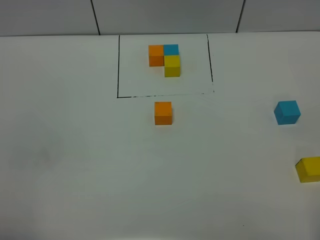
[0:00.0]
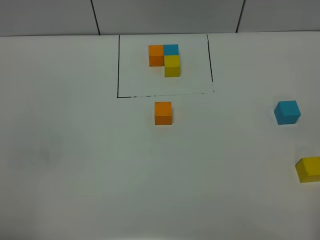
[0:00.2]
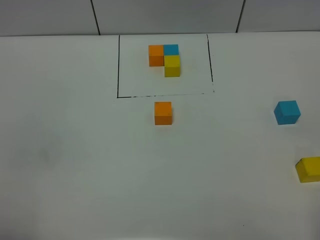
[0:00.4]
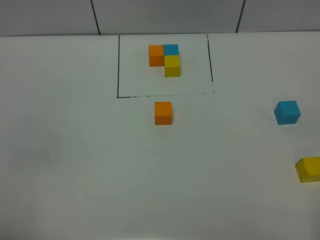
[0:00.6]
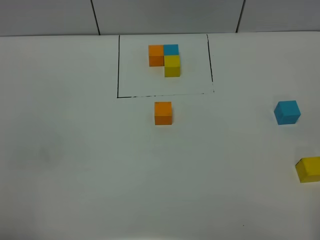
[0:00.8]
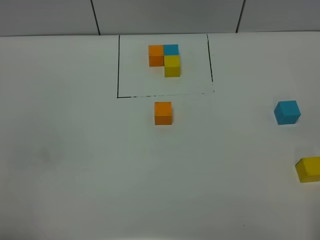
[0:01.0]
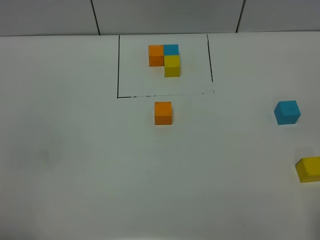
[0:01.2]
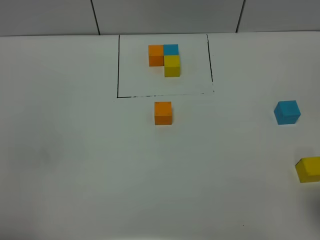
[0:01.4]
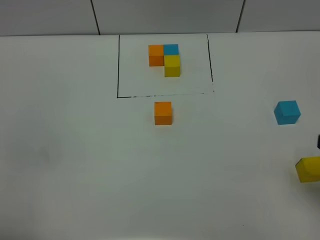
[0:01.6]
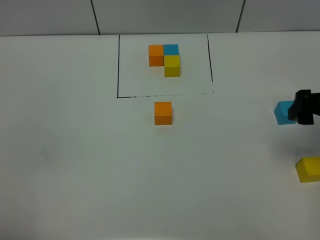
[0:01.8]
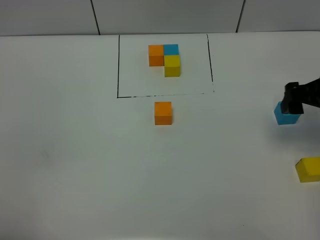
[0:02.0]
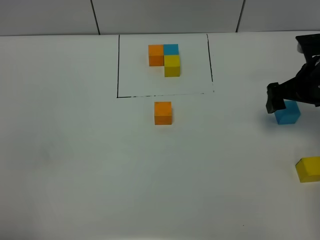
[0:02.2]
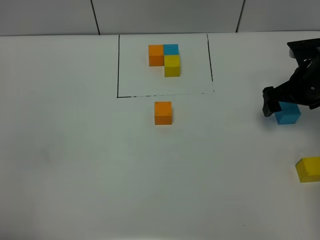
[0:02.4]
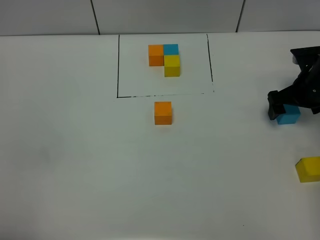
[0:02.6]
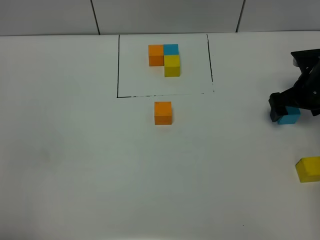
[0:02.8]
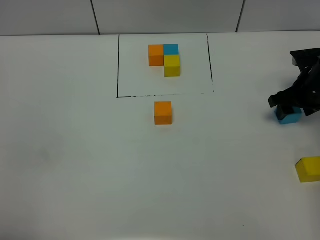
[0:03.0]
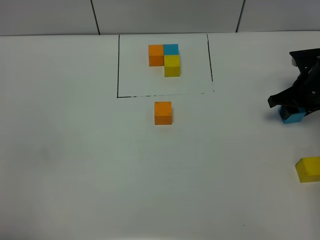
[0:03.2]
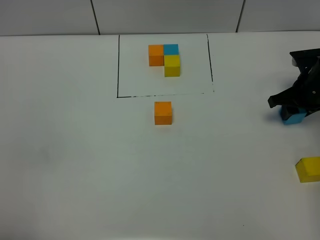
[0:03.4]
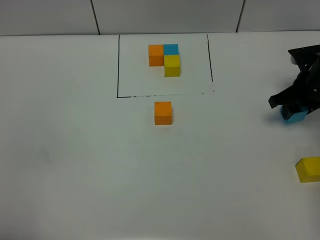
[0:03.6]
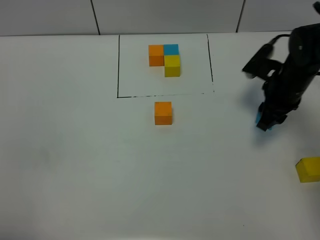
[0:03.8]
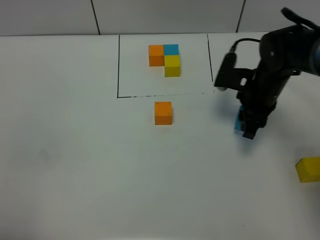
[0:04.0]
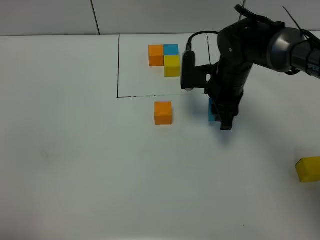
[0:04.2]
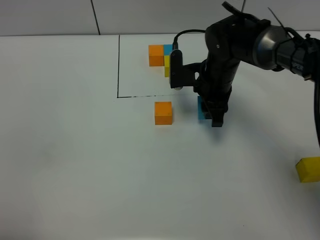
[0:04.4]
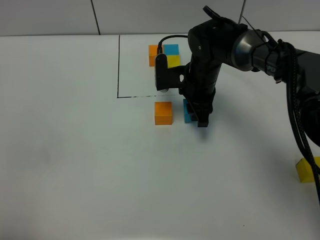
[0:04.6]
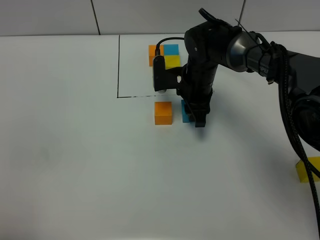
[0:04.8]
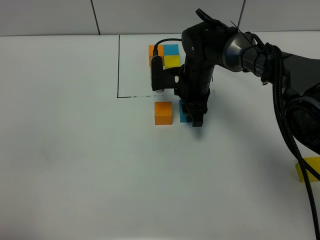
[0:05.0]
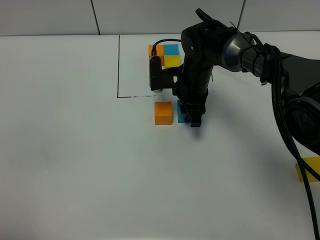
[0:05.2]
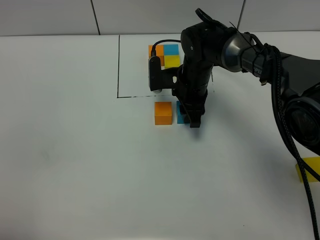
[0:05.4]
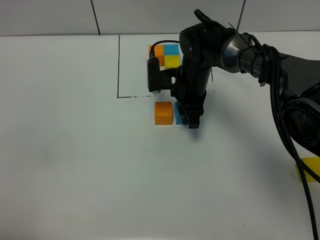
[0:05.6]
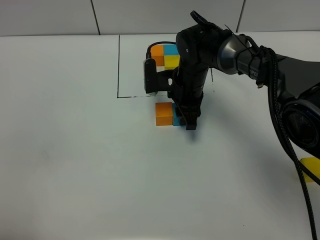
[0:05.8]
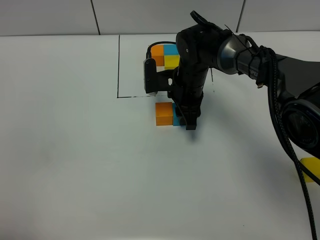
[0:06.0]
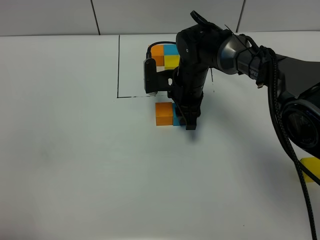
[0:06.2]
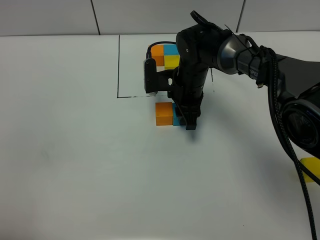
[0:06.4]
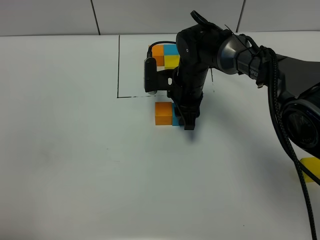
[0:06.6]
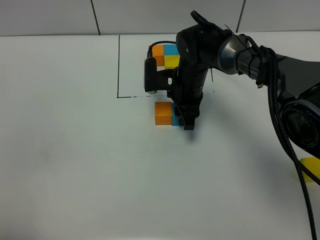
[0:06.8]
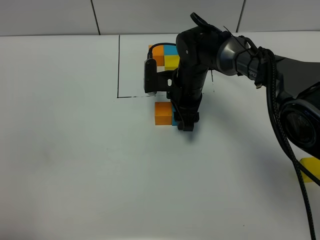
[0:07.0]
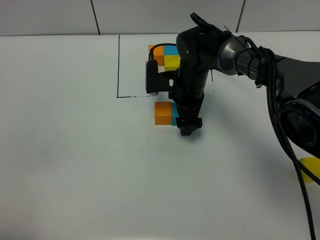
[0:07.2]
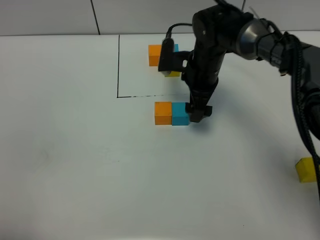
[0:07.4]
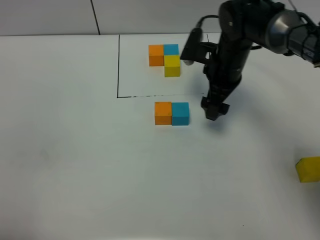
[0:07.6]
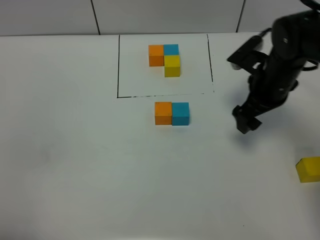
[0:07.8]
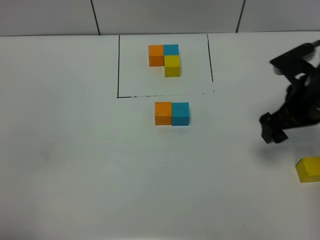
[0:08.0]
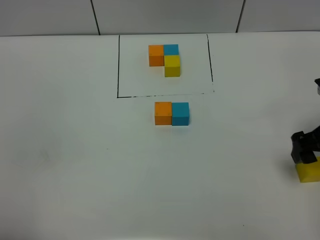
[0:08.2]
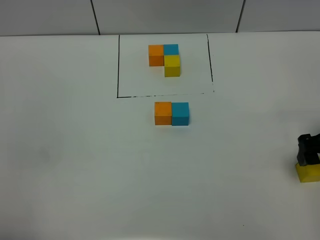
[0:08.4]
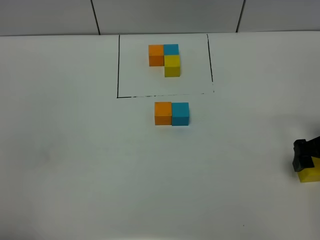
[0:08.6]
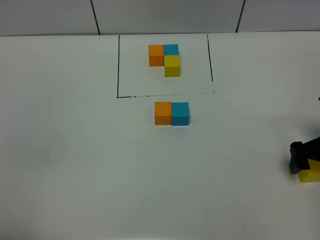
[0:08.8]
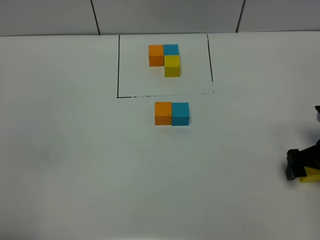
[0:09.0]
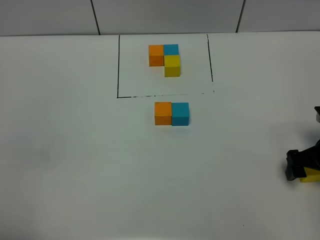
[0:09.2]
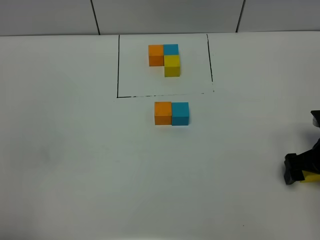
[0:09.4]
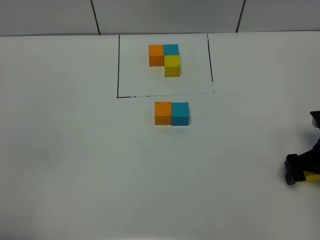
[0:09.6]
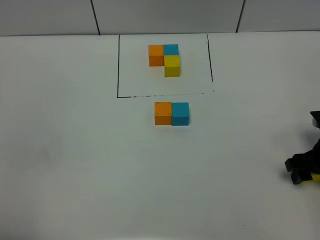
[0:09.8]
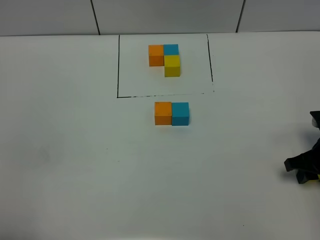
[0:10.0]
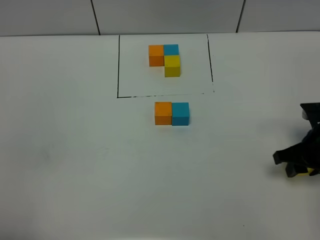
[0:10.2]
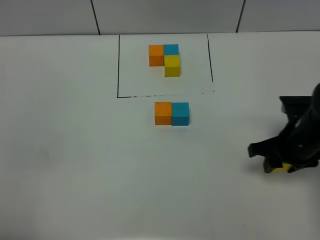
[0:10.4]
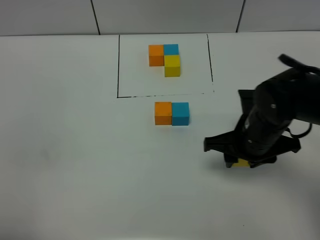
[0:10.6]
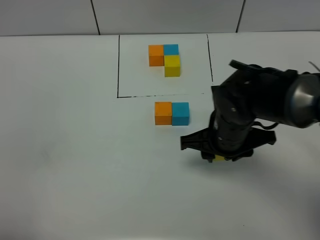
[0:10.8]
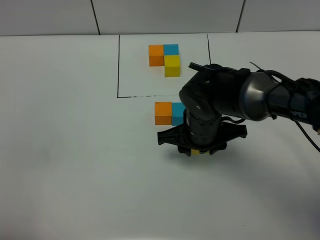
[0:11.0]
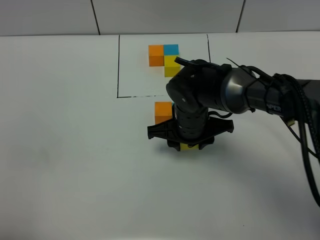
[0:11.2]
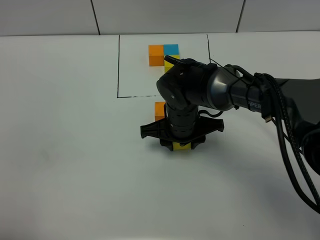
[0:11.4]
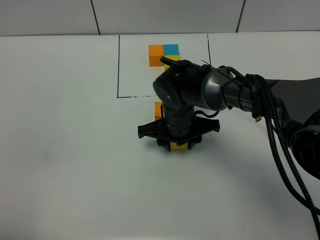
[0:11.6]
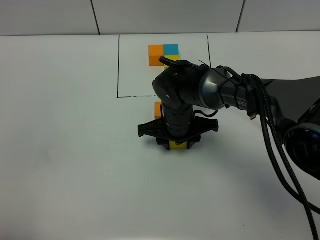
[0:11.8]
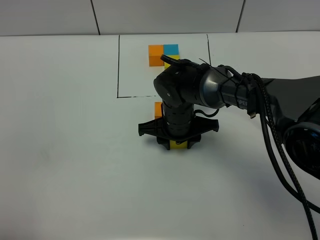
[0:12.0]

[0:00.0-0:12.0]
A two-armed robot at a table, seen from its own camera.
Task of the whole recording: According to the building block template in front, assemble the scattered blocks together.
Step, 0:00.0 to 0:07.0: Put the blue build block on the right of the orange build block.
0:00.0 to 0:01.6: The right gripper travels forward by some 15 cm, and opens up.
0:01.6 to 0:03.0: The right gripper is displaced forward and downward by about 30 cm, and opens, then closes again.
0:03.0 to 0:04.4: The right gripper moves to the left, some 20 cm.
0:04.4 to 0:06.0: The right gripper moves some 5 cm.
0:06.0 to 0:07.6: The right gripper travels to the right and upward by about 10 cm, and opens its fingers.
0:07.6 to 0:09.0: The right gripper shifts approximately 25 cm backward and to the right.
0:09.0 to 0:10.4: The right gripper heads to the left, covering about 10 cm, and closes its fingers.
0:10.4 to 0:12.0: The right gripper goes about 20 cm to the left and forward.

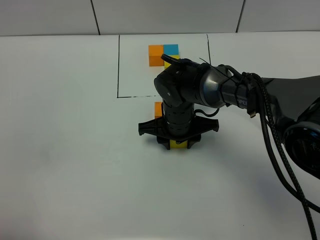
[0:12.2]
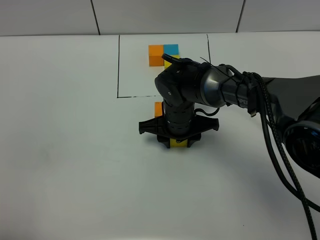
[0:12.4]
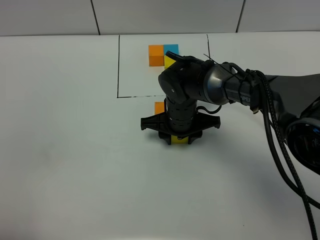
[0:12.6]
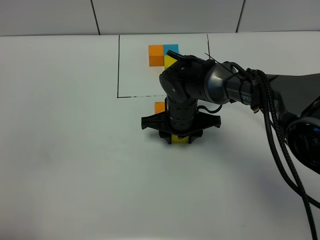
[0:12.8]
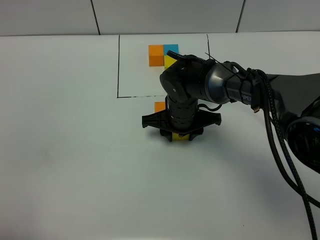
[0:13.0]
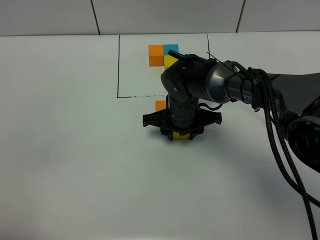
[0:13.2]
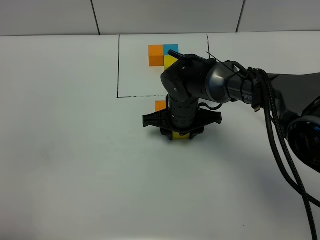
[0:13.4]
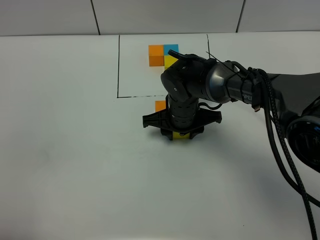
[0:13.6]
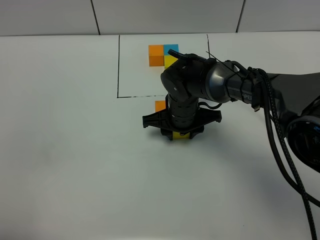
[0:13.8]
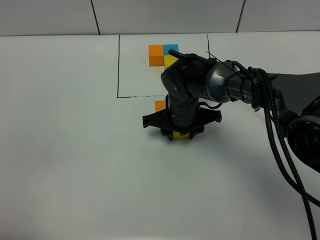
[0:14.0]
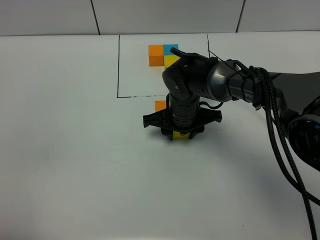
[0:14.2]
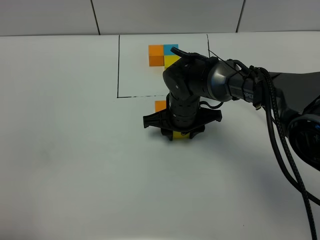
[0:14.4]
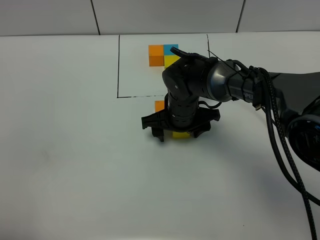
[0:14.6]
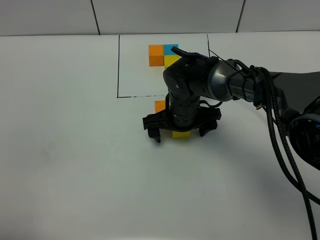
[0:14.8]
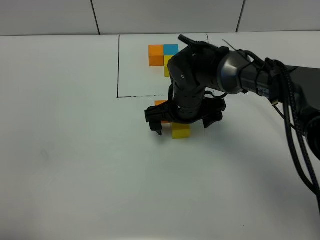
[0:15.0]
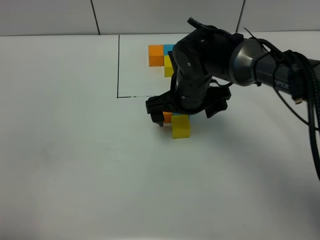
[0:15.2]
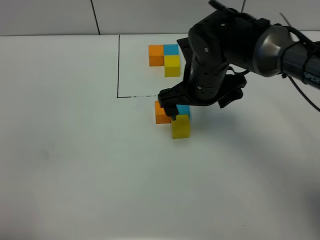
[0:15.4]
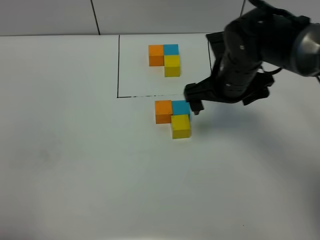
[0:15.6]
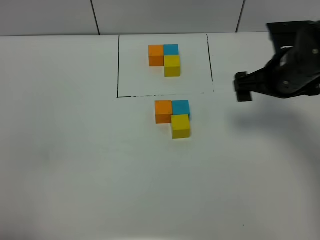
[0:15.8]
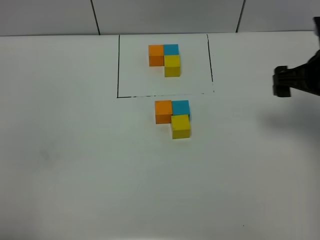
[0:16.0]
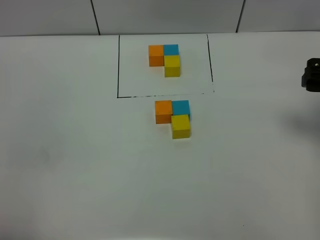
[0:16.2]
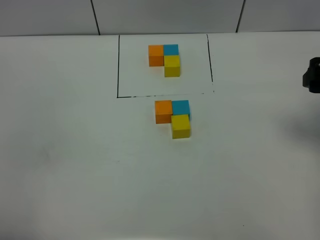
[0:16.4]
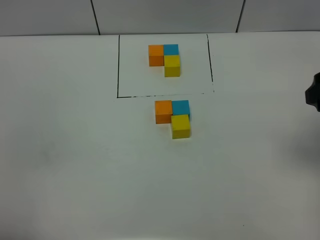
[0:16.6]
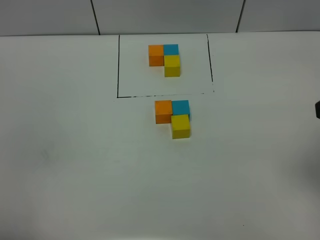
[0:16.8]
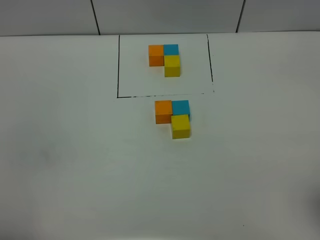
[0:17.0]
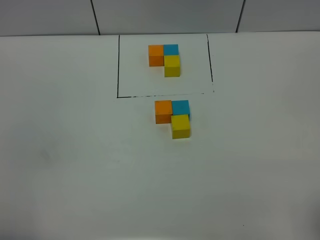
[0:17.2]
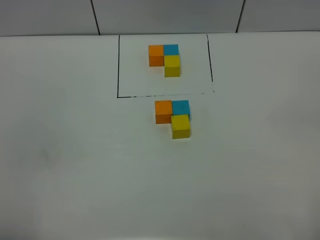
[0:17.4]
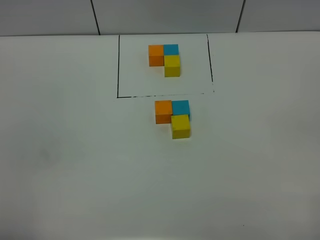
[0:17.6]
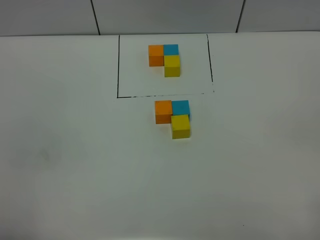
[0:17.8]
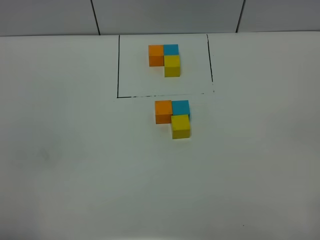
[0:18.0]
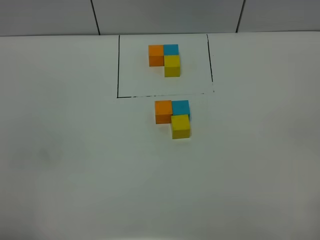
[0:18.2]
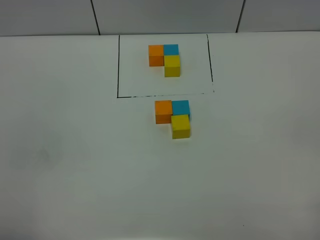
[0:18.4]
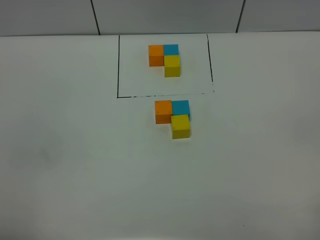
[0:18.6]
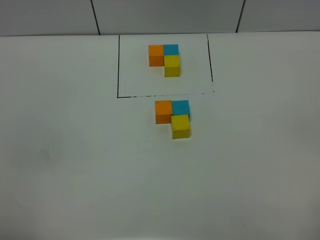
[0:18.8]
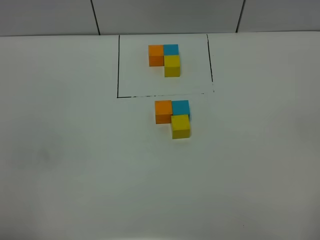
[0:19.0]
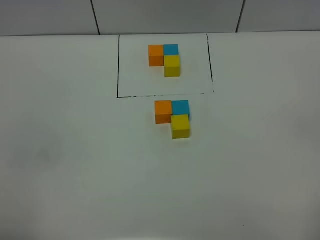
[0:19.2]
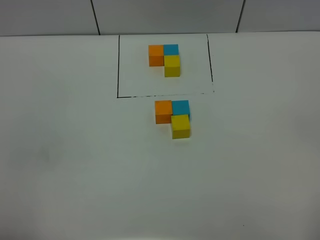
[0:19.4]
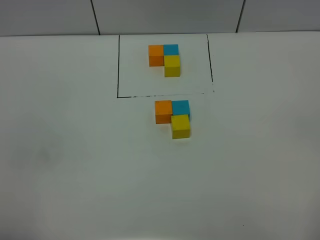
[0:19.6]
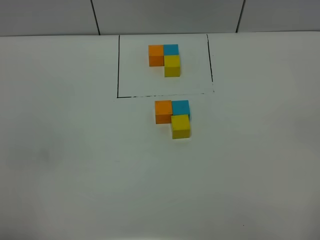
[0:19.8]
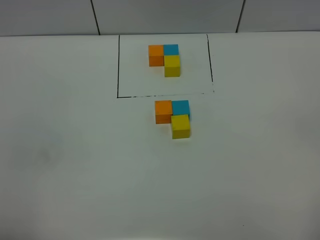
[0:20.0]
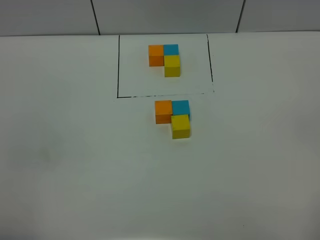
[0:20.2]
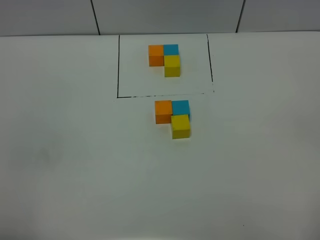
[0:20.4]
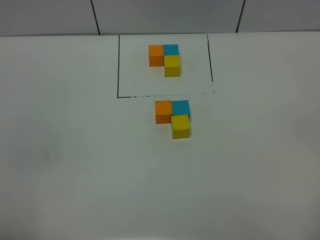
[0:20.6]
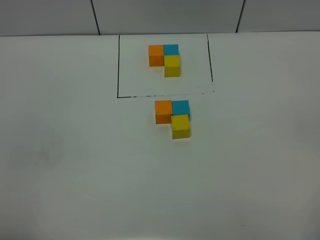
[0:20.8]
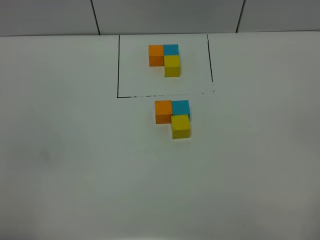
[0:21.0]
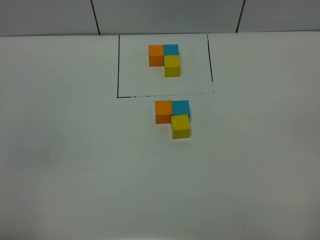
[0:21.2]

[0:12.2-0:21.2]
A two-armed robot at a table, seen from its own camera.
Task of the whole recording: According to the building block template in front, assemble the scattered blocks together.
Step, 0:12.2 to 0:14.2: Put the yellow build block on the behind of the blue build block.
0:12.2 to 0:13.8: The grippers stay close to where they were, moving slightly.
0:13.8 to 0:15.2: The right gripper shifts about 5 cm upward, and opens up.
0:15.2 to 0:16.6: The right gripper shifts roughly 30 cm to the right, backward and upward.
0:16.6 to 0:18.2: The right gripper is displaced backward by approximately 20 cm.
0:19.8 to 0:21.2: The two grippers keep their place.

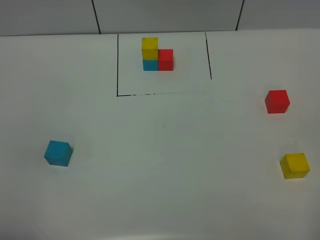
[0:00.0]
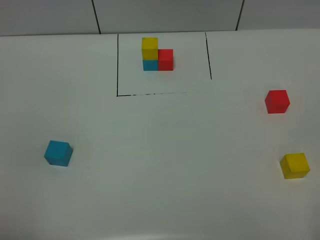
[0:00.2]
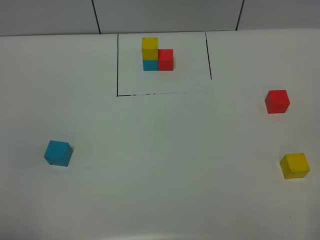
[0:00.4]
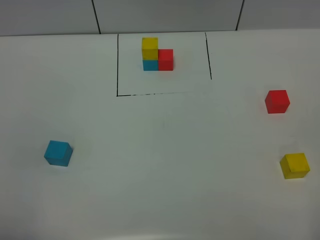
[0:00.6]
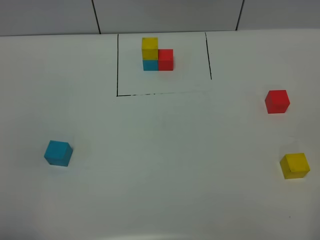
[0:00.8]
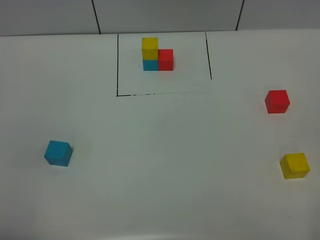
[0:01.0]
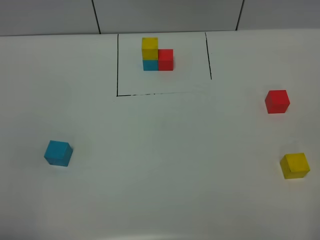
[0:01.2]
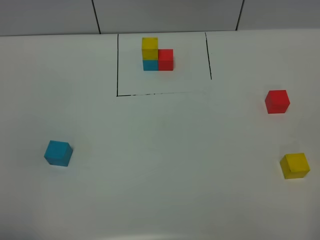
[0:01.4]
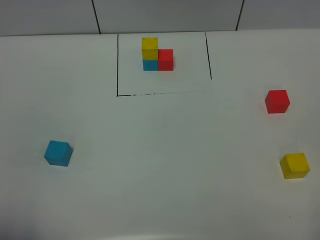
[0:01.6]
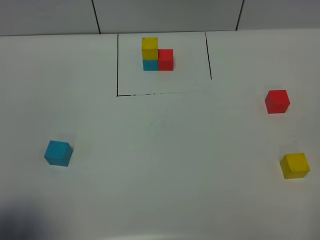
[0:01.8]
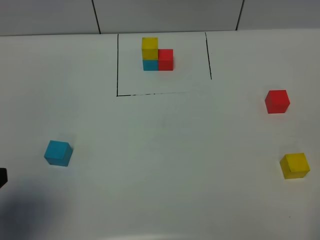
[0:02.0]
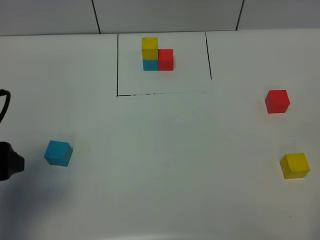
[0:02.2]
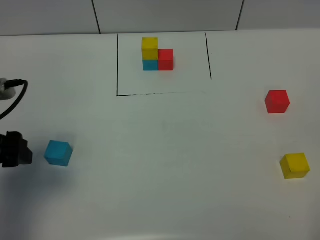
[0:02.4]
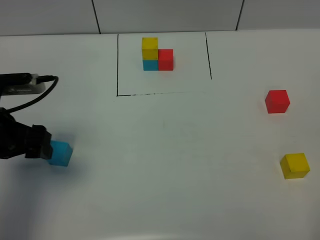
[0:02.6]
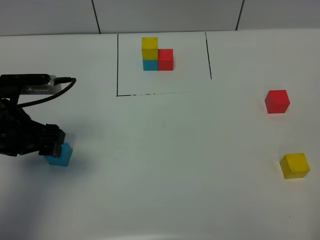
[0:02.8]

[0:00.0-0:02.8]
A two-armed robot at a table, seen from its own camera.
Task of the whole recording: According to the building block template in front, assemble the scattered blocks together.
0:00.0 to 0:01.4: The two grippers keep their place.
0:01.4 to 0:02.8: The left gripper goes roughly 25 cm forward.
